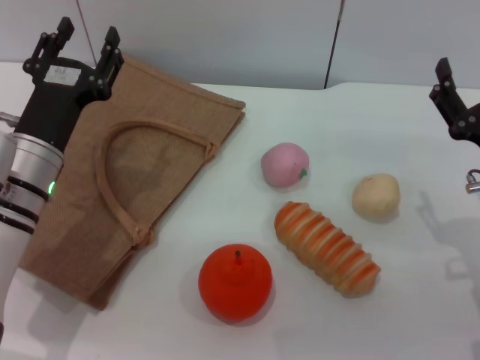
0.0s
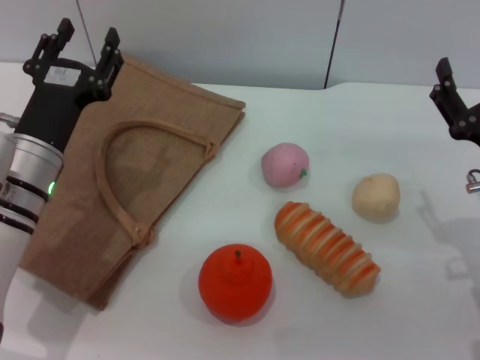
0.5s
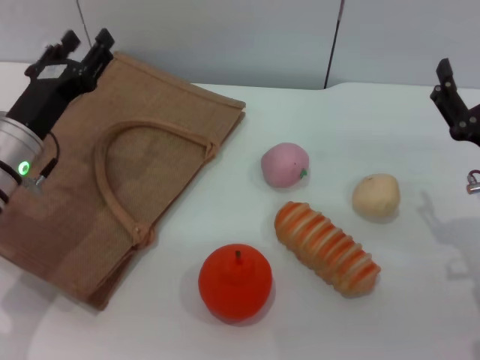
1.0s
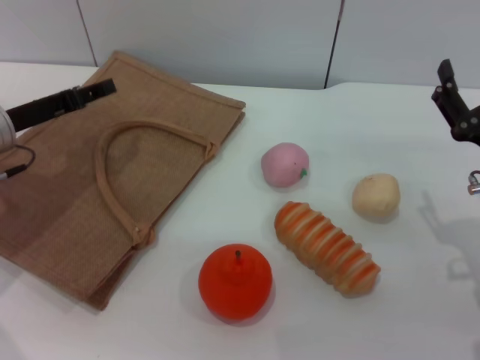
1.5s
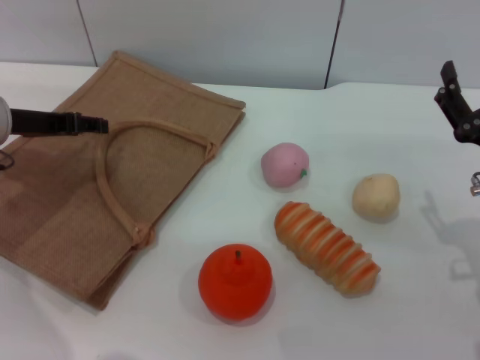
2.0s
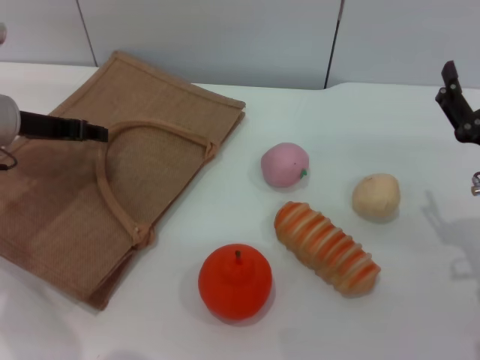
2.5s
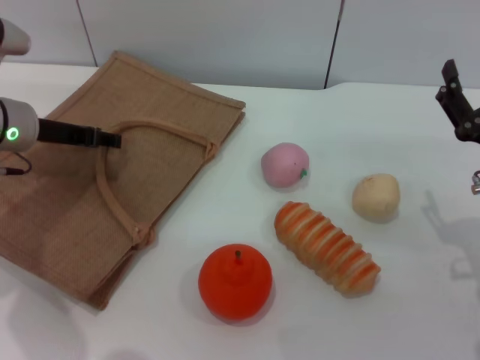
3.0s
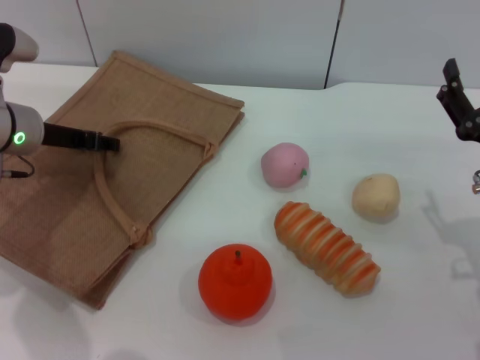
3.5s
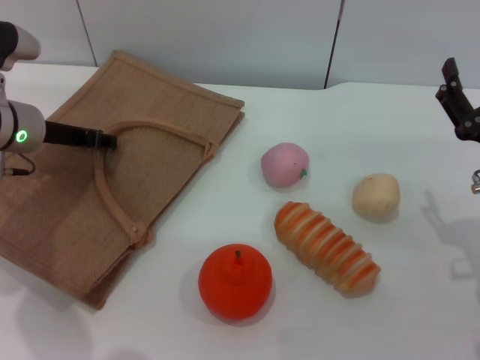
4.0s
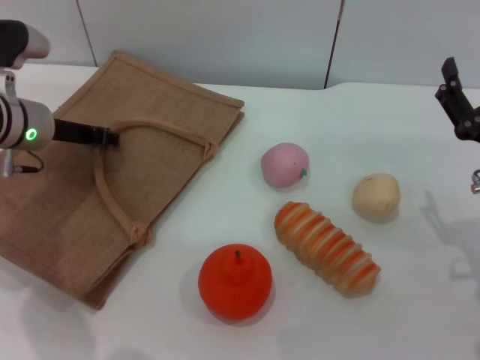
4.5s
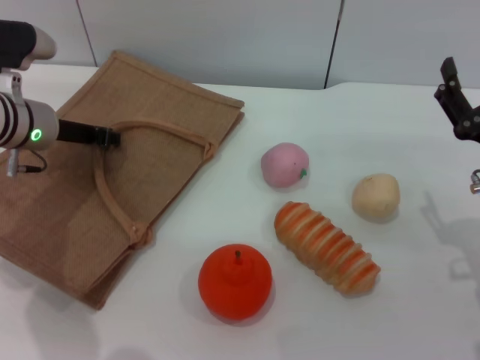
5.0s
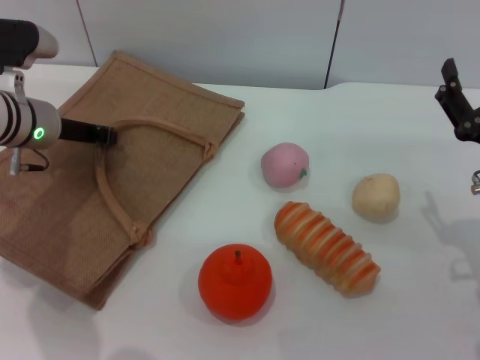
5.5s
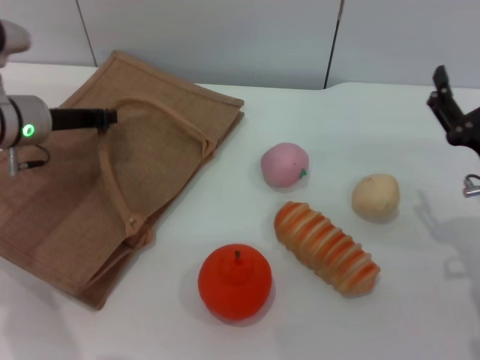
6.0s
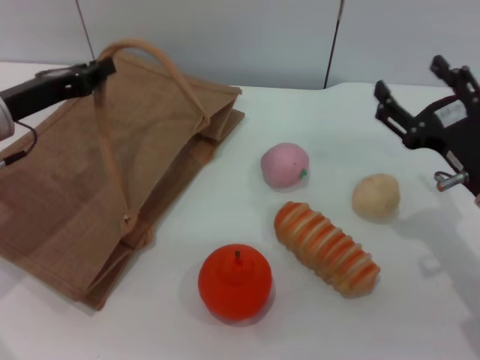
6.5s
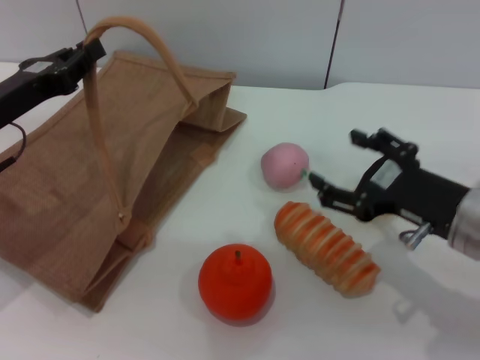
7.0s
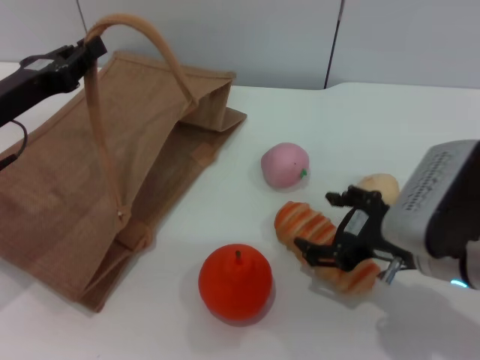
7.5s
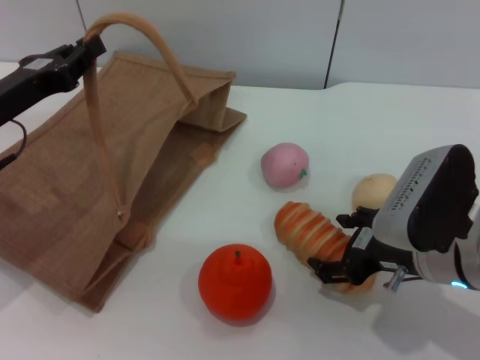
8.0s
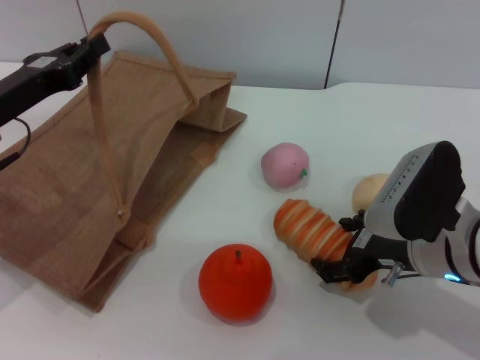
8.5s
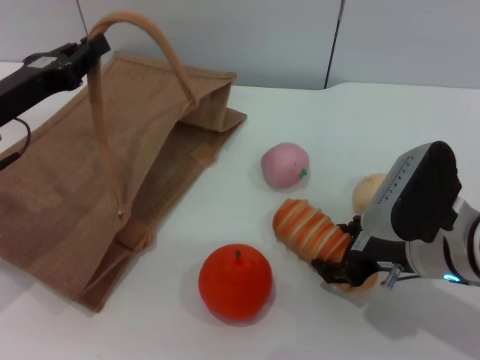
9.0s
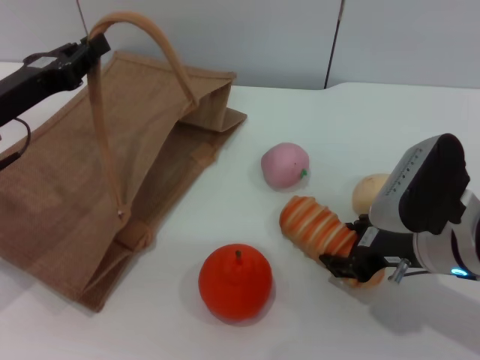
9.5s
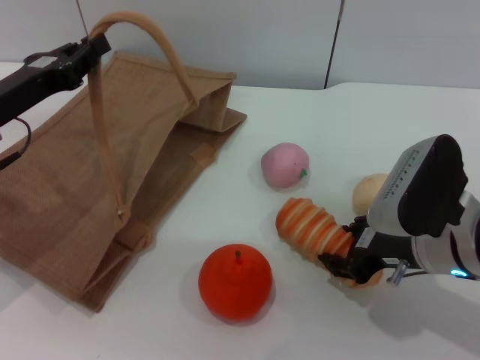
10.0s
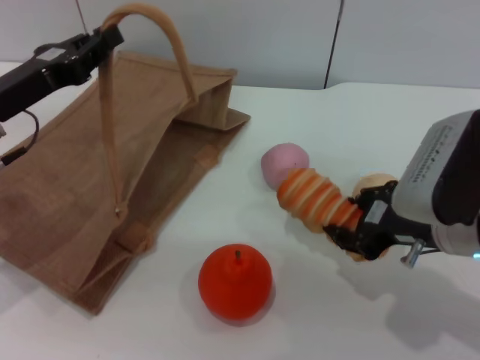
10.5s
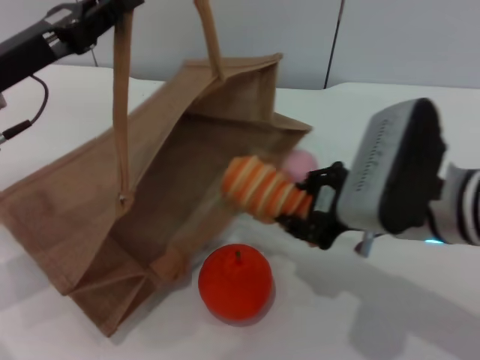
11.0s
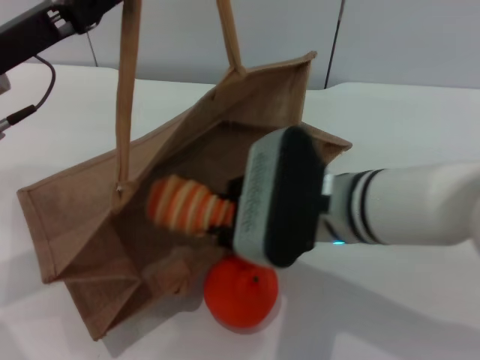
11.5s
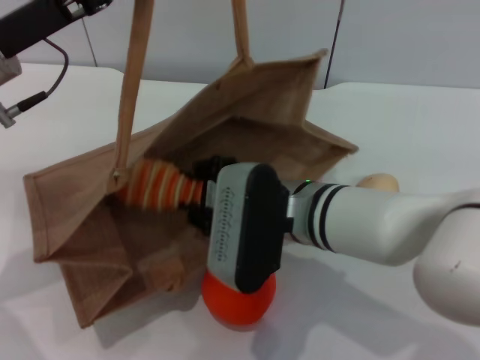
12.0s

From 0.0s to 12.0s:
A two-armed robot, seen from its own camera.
Task of the whole recording: pick up the bread from the table and place it in the brown handbag.
Step, from 0.0s to 6.0s: Lift the woven bag with the left gripper to open it.
Step, from 6.5s to 10.5s: Pick up the bread with the right gripper.
From 0.0s to 2.0s: The left gripper shifts approximately 10 cm to the left, forward and upward.
From 2.0s to 4.0s: The grippers stay close to where they were, moving slightly.
From 4.0s to 6.0s: The left gripper closes.
From 6.0s to 8.0s: The left gripper travels backward by roughly 10 cm. The right gripper shifts about 5 cm to the left.
From 8.0s to 10.0s: The right gripper closes up.
From 10.0s to 12.0s: The left gripper travels upward by roughly 5 cm; the right gripper heads to the left, covering roughly 15 cm.

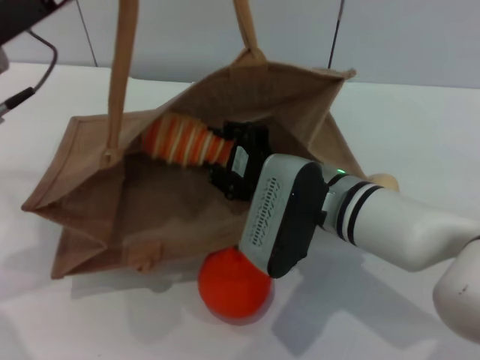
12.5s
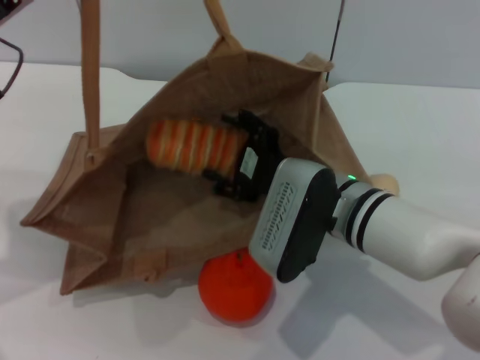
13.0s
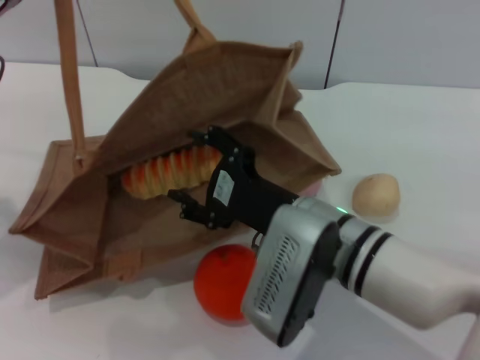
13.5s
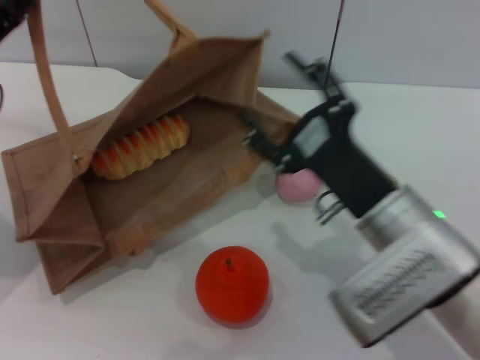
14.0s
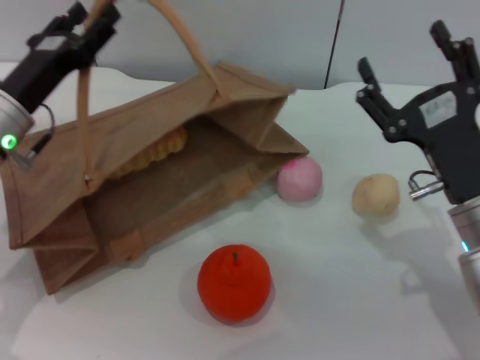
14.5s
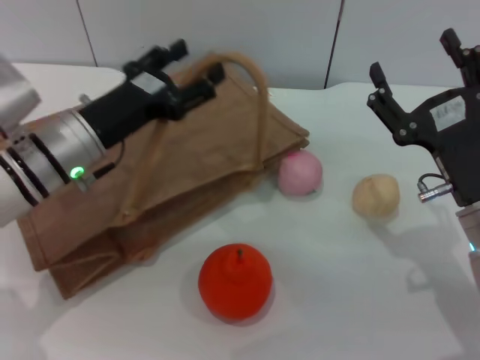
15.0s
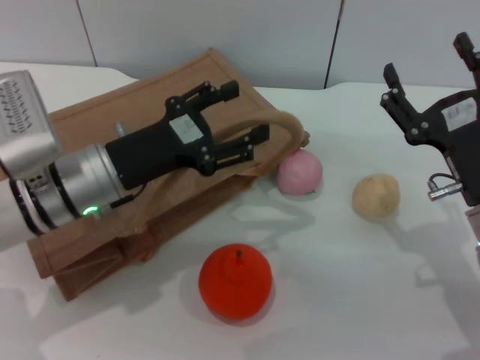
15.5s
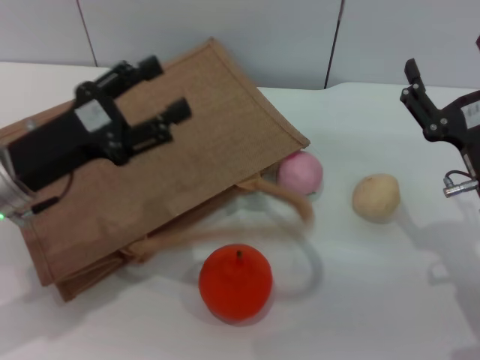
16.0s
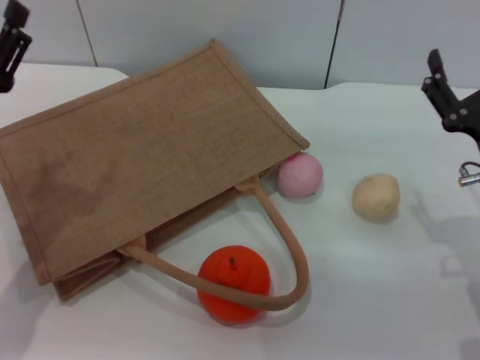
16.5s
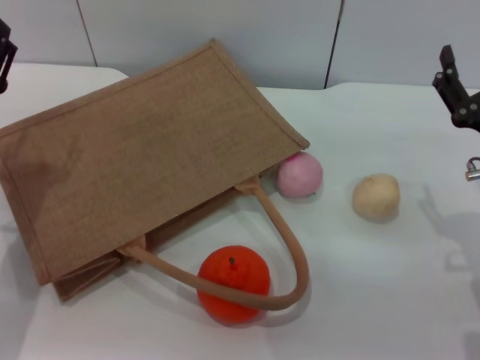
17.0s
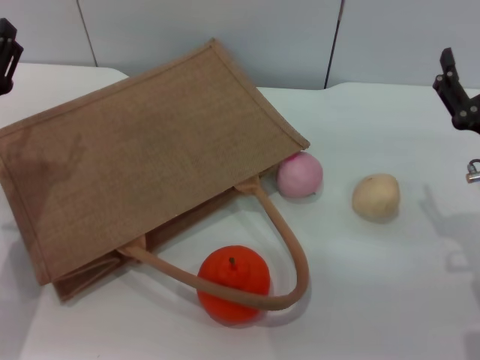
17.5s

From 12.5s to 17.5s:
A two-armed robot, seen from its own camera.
Task of the whole recording: pick up the bread from the table and place it in the brown handbag.
Step, from 14.5s to 16.0s: Lower the woven bag with the left gripper to close it.
From 12.5s to 15.0s: The right gripper travels to the right by roughly 15 cm, and opens up. The left gripper heads downward and to the right, covering approximately 10 cm, and opens its fingers.
From 15.0s to 17.5s: The left gripper goes about 10 cm to the left.
